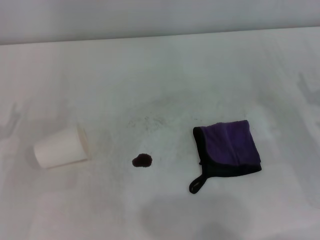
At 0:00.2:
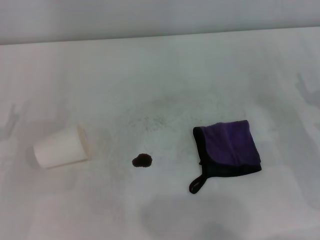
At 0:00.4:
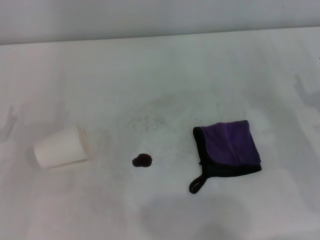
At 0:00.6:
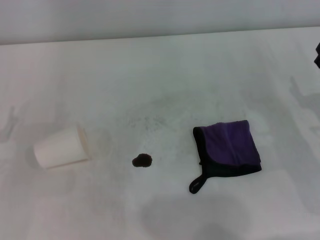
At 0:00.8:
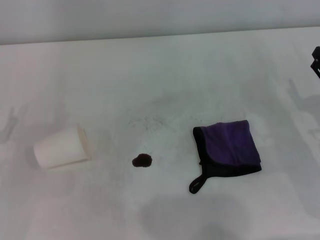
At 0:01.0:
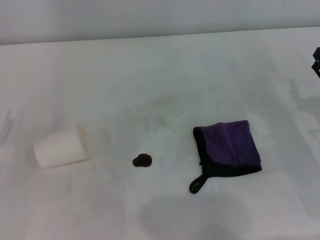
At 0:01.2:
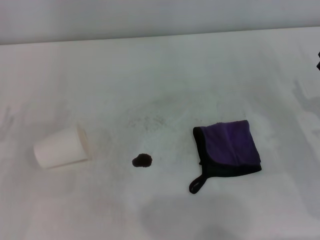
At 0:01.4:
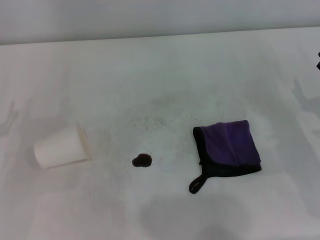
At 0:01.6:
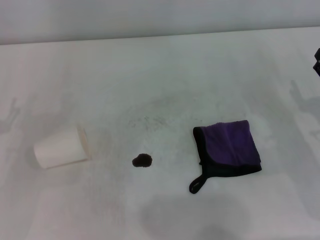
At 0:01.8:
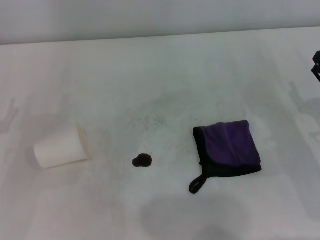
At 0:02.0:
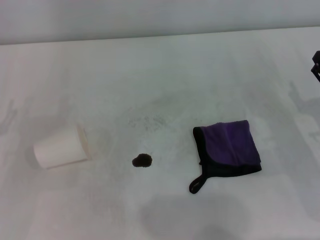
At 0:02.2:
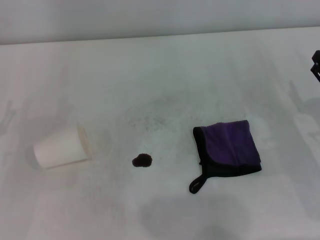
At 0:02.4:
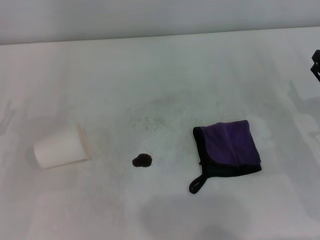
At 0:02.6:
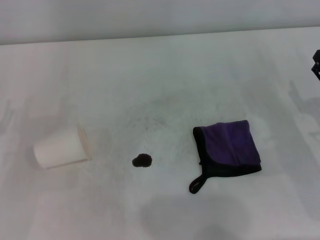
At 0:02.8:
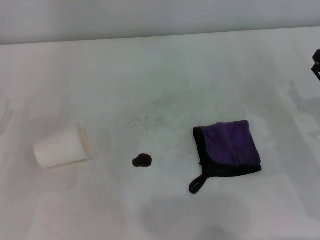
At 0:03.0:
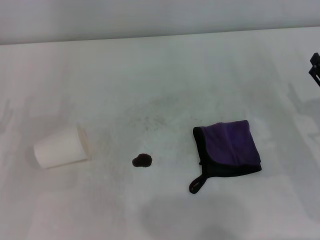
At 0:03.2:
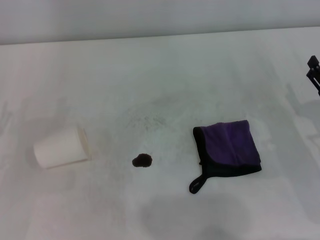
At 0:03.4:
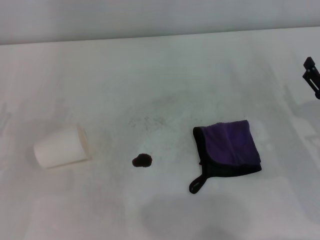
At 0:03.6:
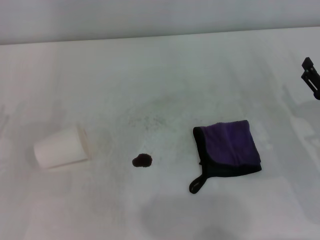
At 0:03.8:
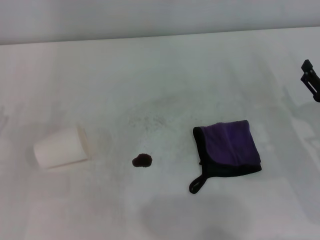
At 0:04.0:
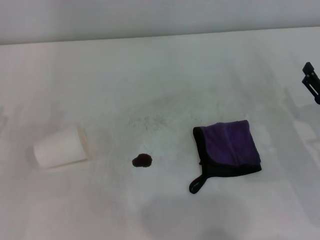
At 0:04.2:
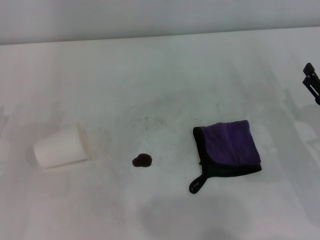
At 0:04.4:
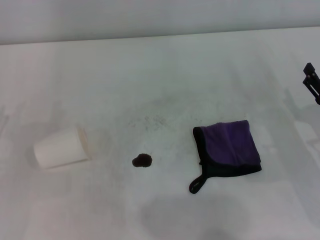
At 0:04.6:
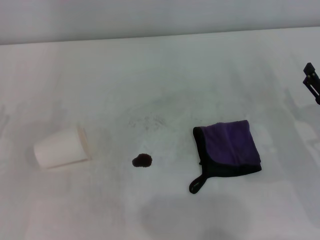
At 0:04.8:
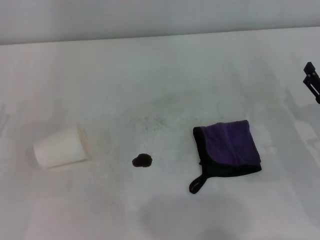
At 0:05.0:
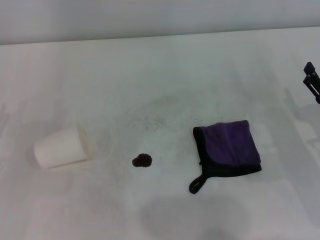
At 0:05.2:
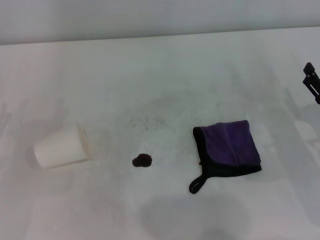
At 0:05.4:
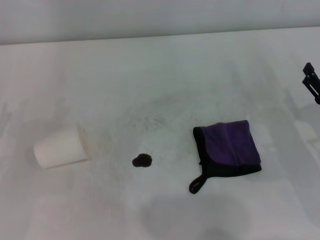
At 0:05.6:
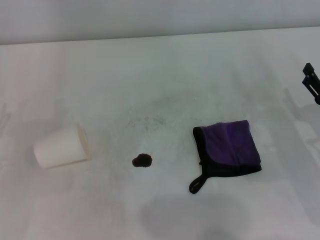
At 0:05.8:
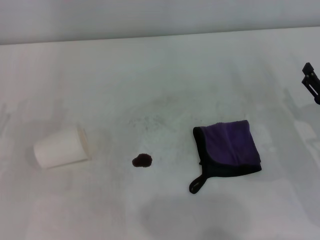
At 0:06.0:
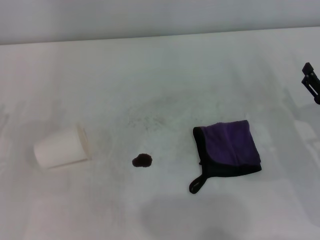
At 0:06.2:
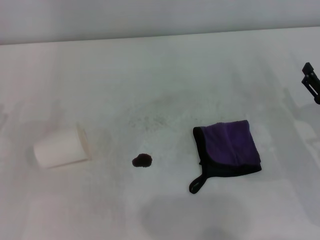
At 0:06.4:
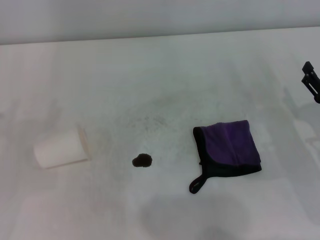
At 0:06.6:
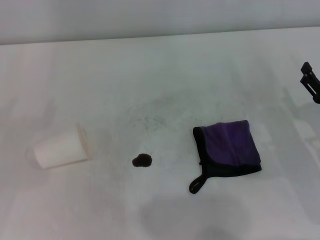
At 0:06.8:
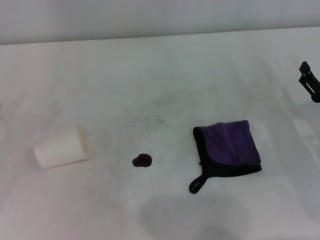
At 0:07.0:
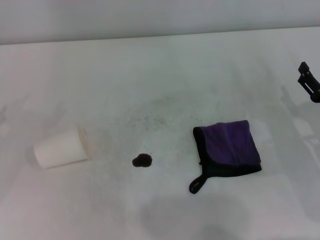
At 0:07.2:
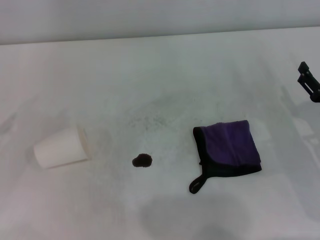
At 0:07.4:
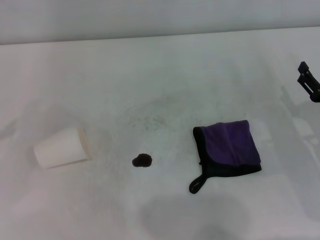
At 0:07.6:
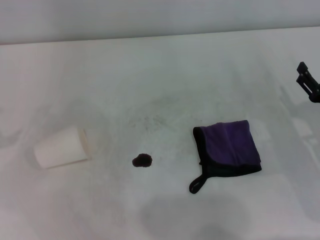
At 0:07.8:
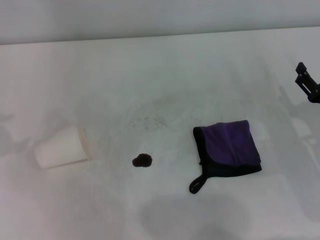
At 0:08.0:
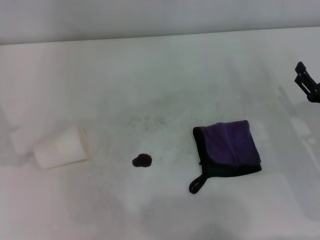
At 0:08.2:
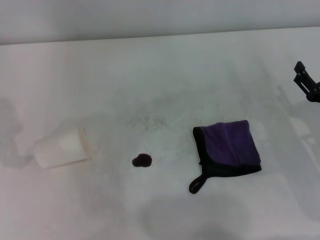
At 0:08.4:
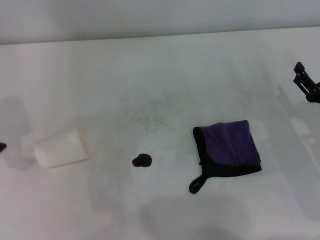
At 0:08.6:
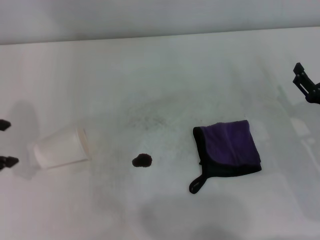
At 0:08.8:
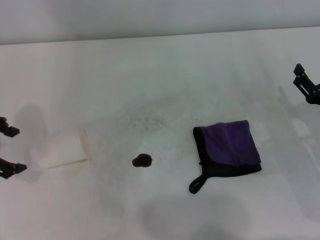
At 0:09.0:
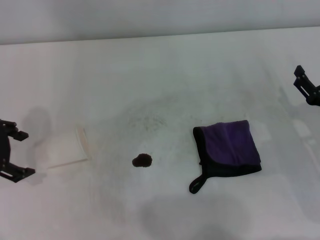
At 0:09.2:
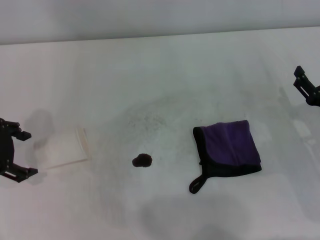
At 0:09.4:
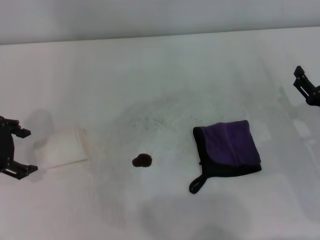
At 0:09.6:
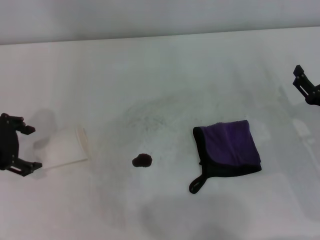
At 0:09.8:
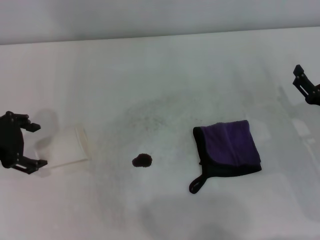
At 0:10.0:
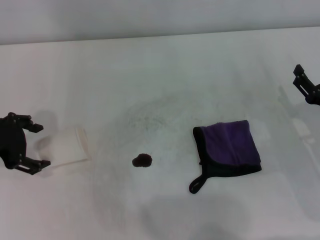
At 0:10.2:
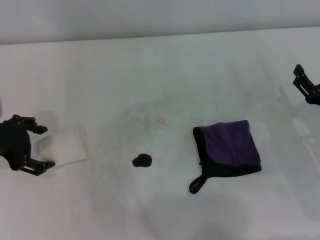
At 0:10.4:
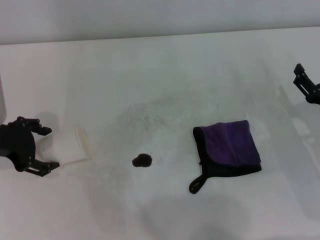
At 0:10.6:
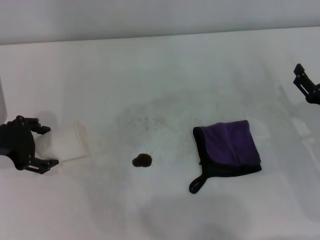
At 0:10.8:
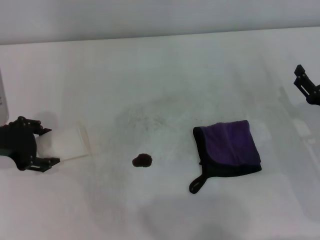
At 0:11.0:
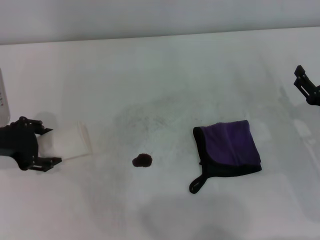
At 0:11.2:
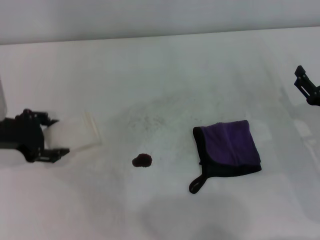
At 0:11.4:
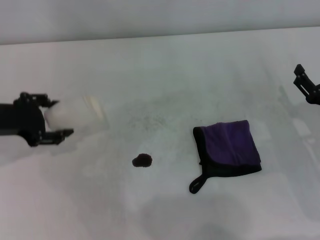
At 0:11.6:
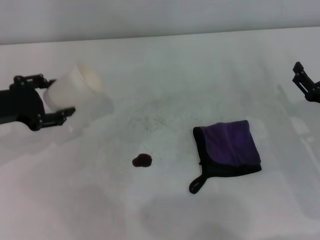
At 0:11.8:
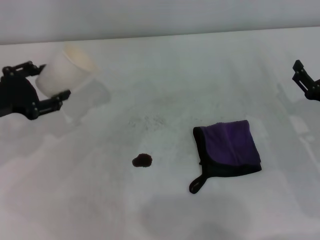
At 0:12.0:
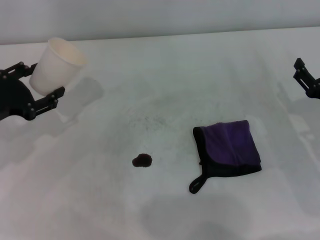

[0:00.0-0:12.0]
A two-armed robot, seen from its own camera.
Step, 0:00.0 to 0:10.8: Grasp the paper cup with the left gripper.
0:01.6 to 0:03.0: The two grippers keep their place.
0:04.4 to 0:06.0: Both grippers stay about where they are.
0:07.6 to 0:09.0: The left gripper is displaced to the right by approximately 10 cm.
0:09.0 to 0:10.4: The grippers stay close to where they were, moving slightly.
0:10.4 to 0:12.0: The left gripper closes its fingers.

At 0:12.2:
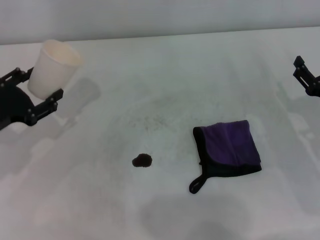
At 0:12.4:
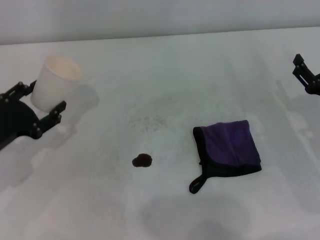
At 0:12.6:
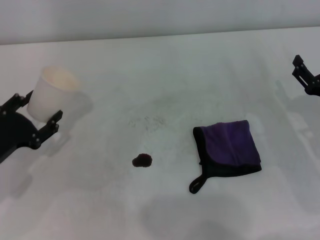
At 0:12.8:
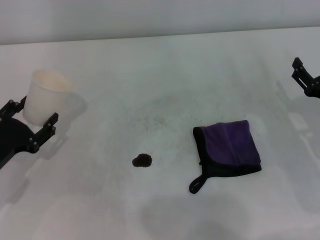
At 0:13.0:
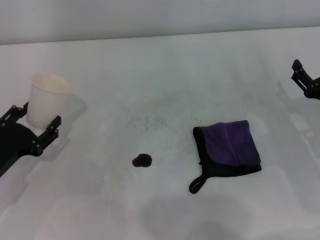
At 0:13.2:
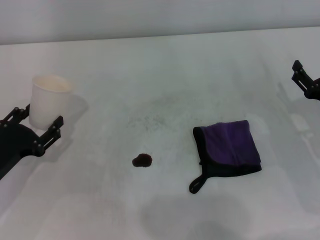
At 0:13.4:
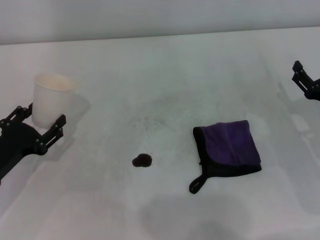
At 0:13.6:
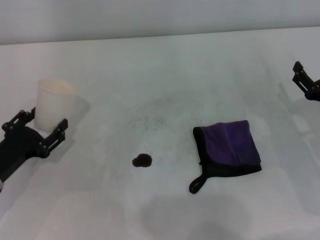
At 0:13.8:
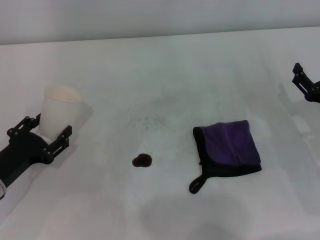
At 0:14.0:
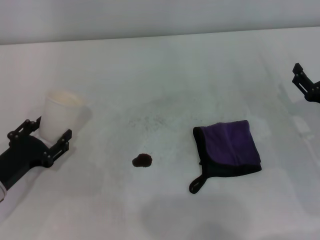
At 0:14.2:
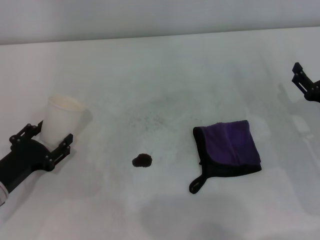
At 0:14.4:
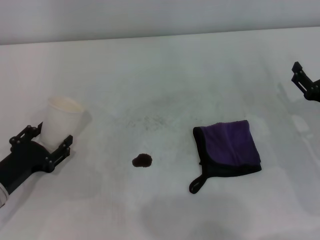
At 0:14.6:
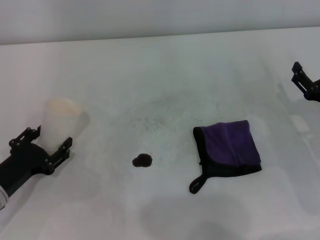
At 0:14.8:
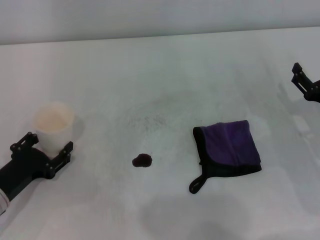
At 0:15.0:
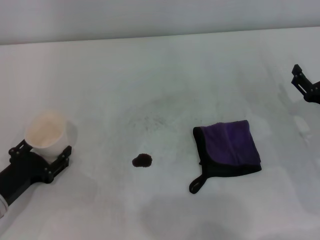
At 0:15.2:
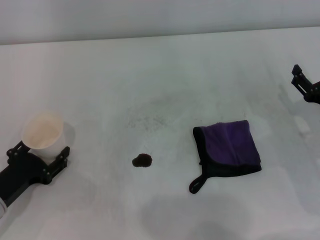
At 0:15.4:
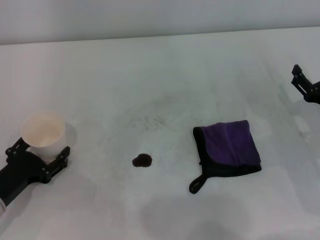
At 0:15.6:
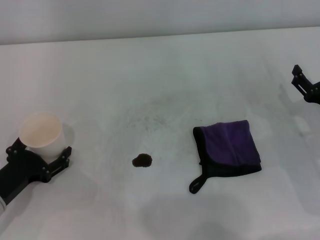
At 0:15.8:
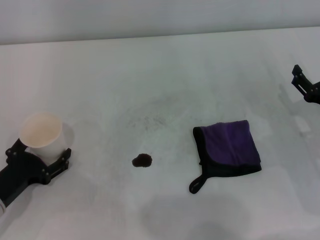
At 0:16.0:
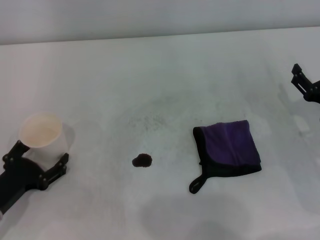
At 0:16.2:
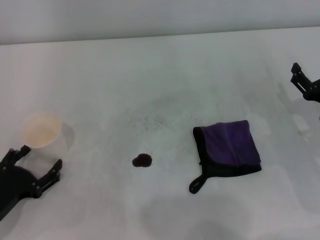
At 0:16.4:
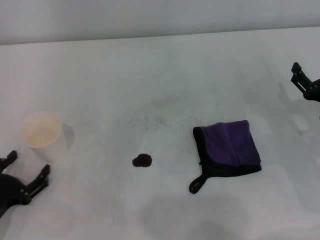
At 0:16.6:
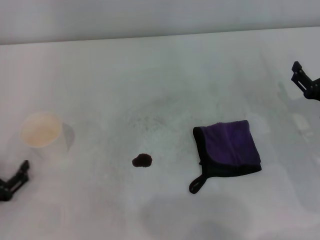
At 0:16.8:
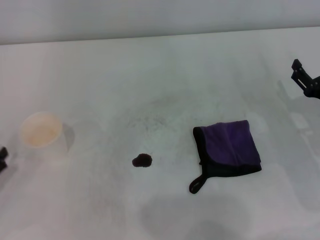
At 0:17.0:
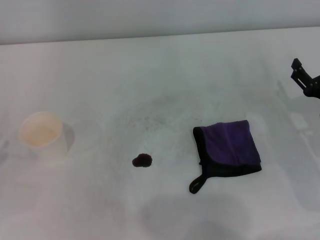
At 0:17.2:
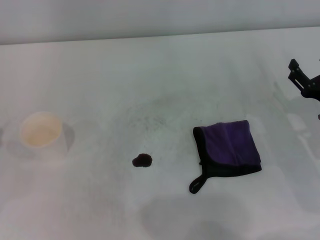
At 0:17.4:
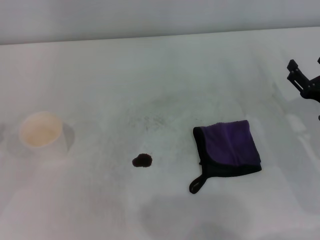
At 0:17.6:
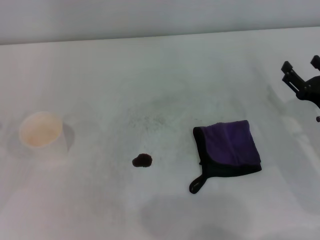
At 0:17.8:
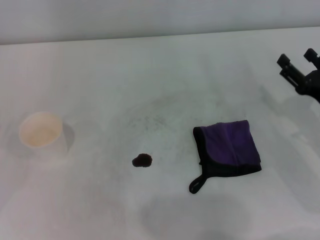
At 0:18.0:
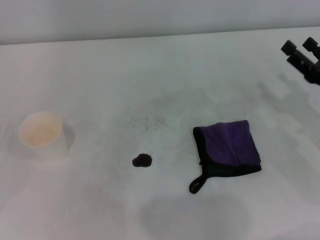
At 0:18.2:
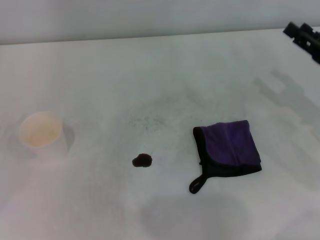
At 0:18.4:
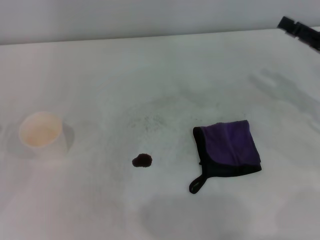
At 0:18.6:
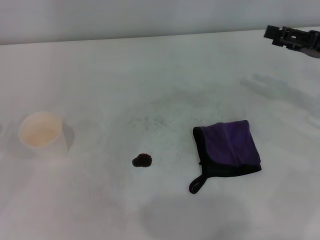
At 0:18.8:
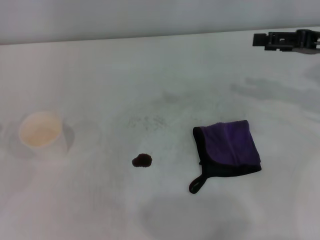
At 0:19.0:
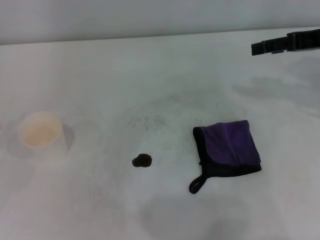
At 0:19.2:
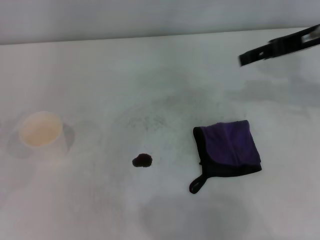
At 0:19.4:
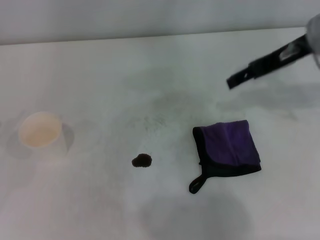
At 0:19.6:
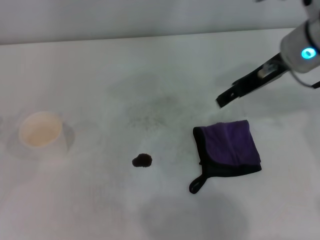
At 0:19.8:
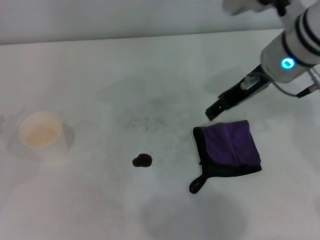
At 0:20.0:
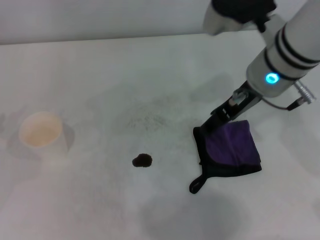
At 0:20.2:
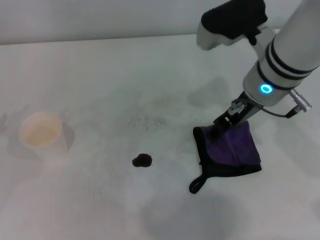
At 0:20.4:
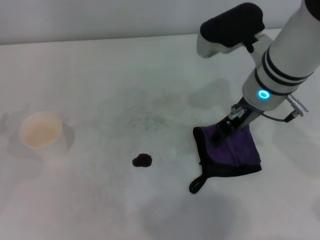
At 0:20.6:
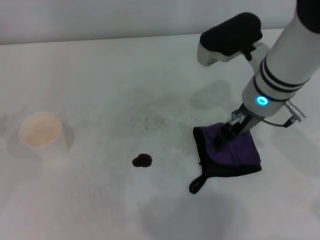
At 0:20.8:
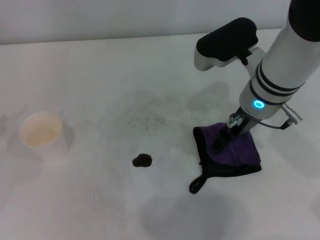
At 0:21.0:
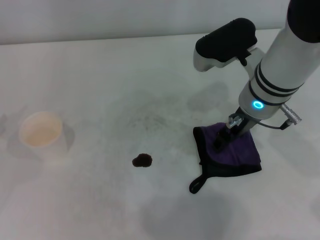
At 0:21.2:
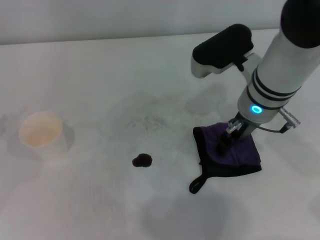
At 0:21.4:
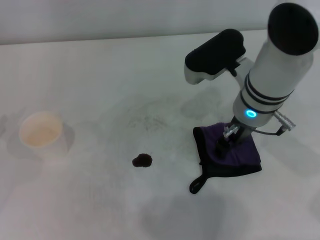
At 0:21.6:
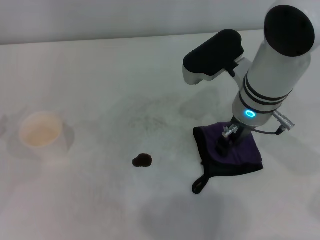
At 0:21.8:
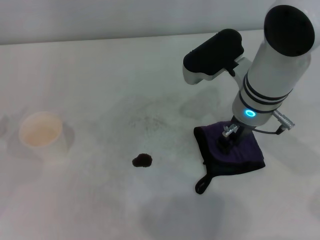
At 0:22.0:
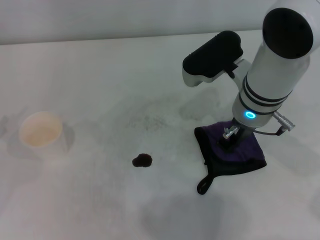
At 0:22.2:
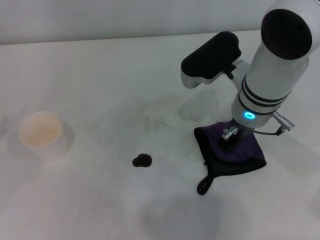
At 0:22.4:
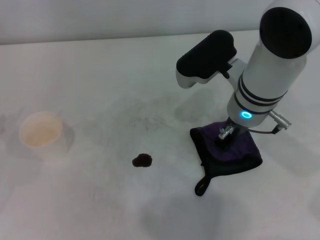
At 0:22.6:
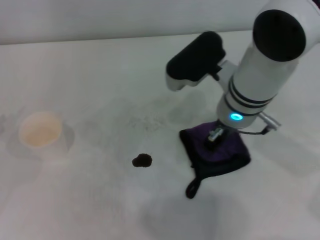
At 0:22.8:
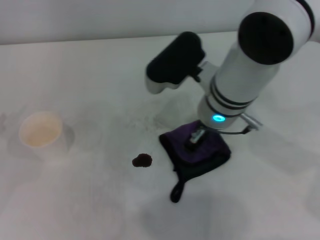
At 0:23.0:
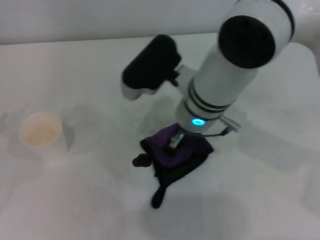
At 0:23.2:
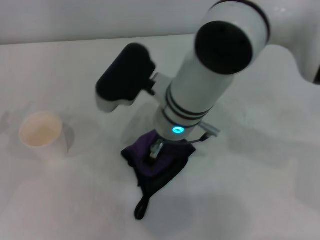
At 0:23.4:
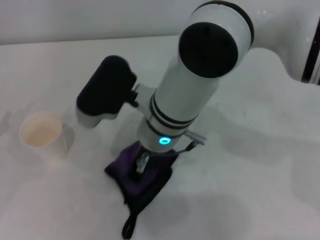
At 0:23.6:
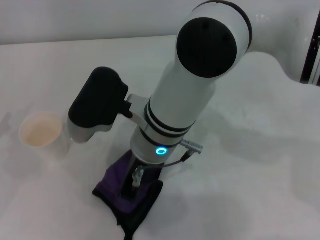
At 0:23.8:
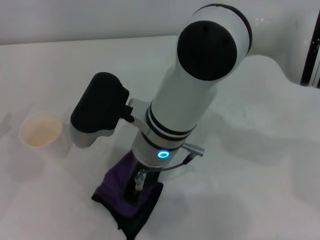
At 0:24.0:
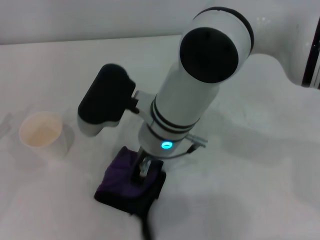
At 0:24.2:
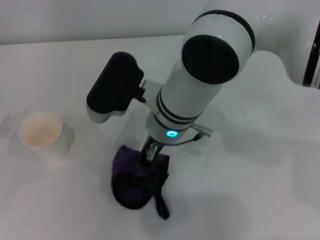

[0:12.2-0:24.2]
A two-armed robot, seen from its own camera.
Step, 0:12.2 to 0:15.6: Stand the paper cup upright with the left gripper.
Step, 0:15.8 to 0:22.2: Grasp the rag with the right gripper.
0:12.2 to 0:13.8: The left gripper travels downward and backward by about 10 cm.
0:13.8 to 0:15.2: The grippers move only a little.
0:15.2 to 0:16.6: The left gripper shifts by approximately 5 cm, and opens its fingers.
0:16.6 to 0:18.2: The right gripper travels upward by about 5 cm. The left gripper heads upward and to the left, covering some 15 cm.
0:18.2 to 0:19.8: The right gripper goes about 20 cm to the left, upward and forward.
0:19.8 to 0:21.2: The right gripper heads downward, covering approximately 5 cm.
0:21.2 to 0:22.6: The right gripper closes.
0:22.6 to 0:24.2: The right gripper heads to the left, covering approximately 10 cm.
